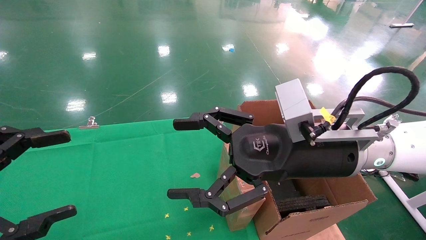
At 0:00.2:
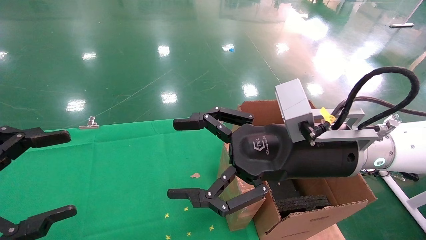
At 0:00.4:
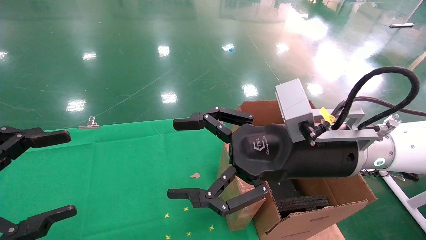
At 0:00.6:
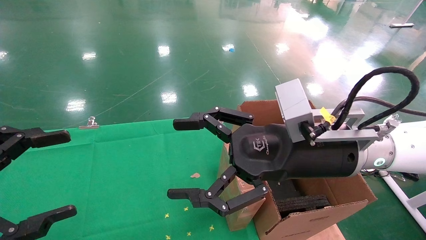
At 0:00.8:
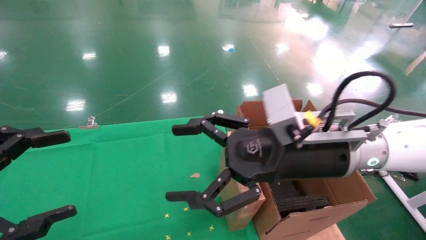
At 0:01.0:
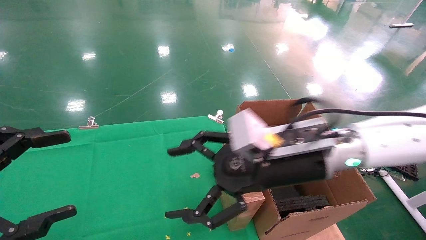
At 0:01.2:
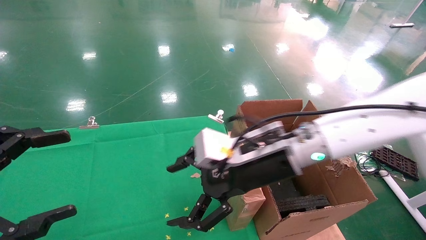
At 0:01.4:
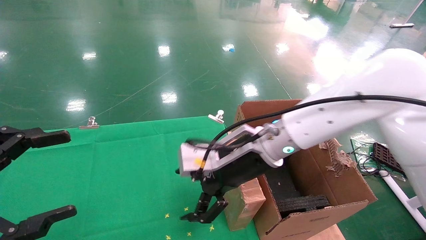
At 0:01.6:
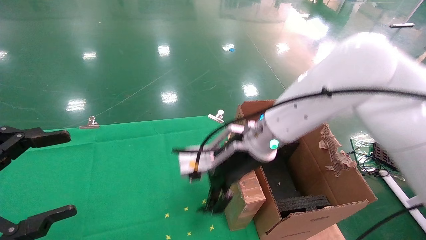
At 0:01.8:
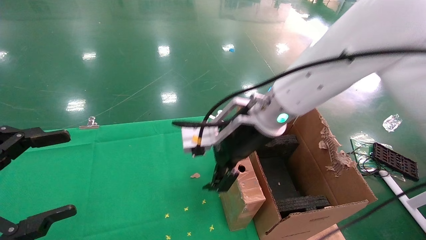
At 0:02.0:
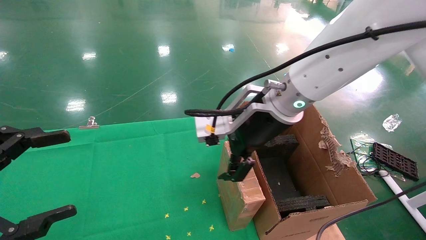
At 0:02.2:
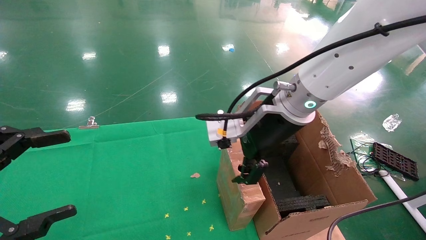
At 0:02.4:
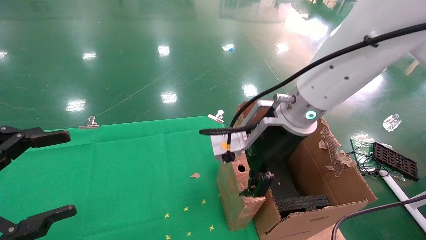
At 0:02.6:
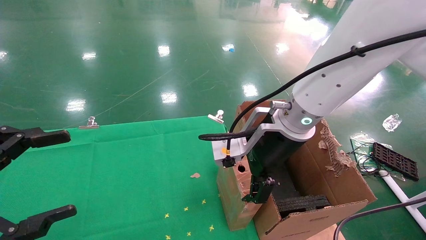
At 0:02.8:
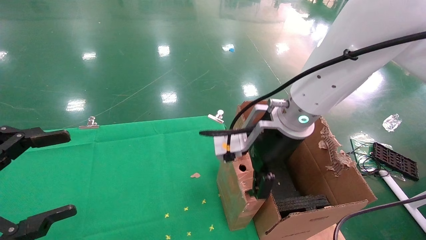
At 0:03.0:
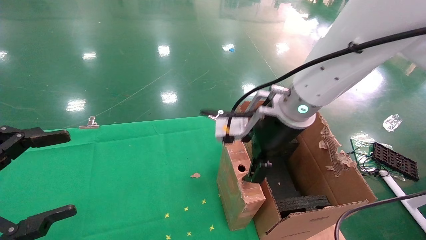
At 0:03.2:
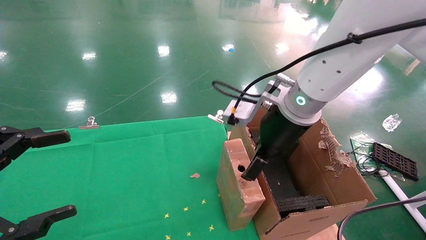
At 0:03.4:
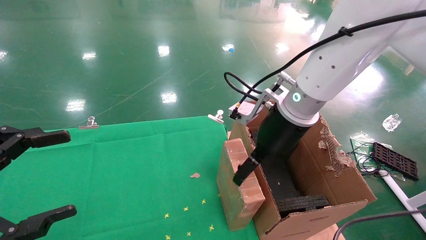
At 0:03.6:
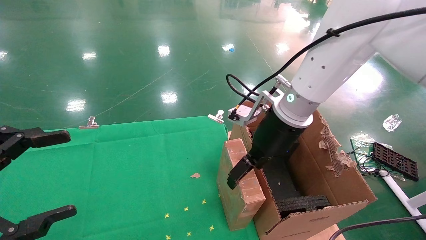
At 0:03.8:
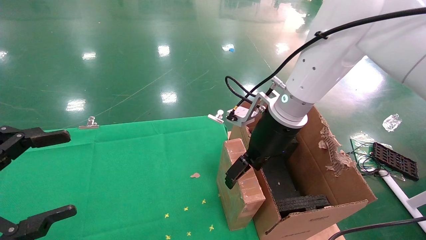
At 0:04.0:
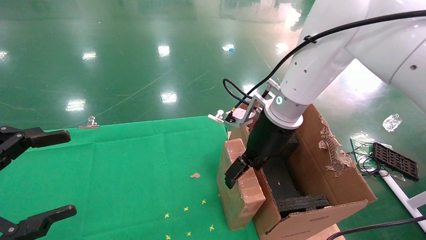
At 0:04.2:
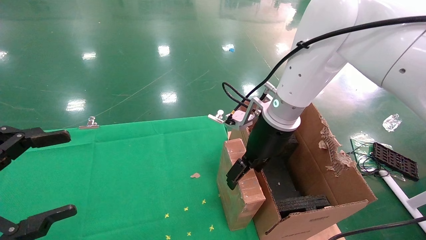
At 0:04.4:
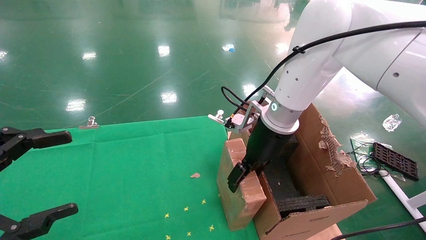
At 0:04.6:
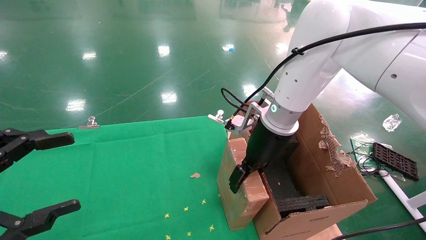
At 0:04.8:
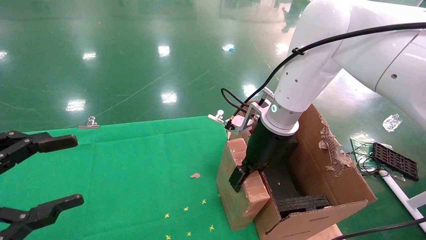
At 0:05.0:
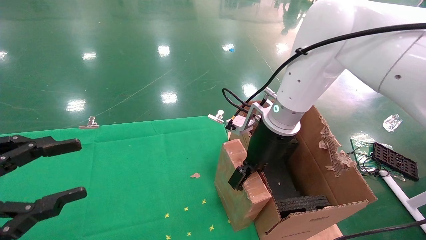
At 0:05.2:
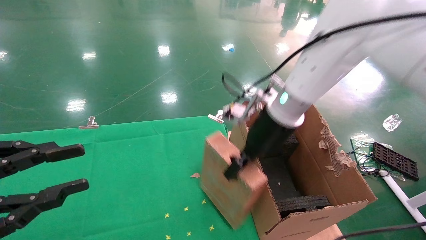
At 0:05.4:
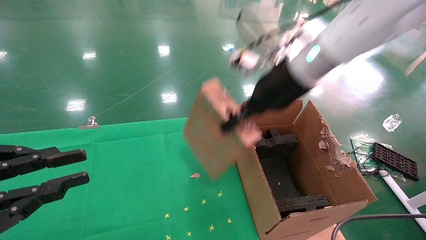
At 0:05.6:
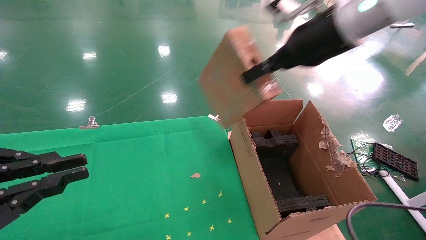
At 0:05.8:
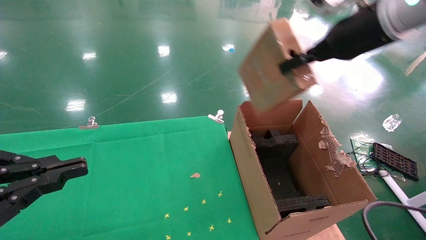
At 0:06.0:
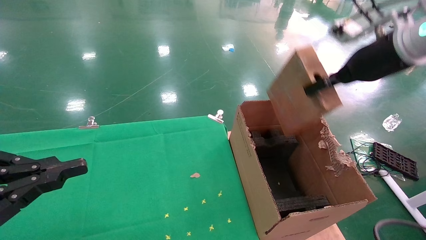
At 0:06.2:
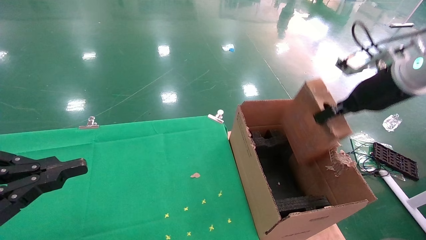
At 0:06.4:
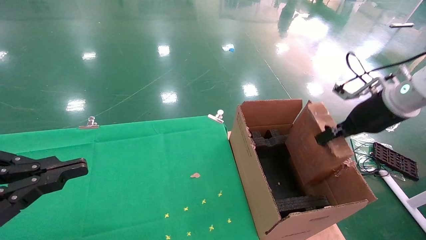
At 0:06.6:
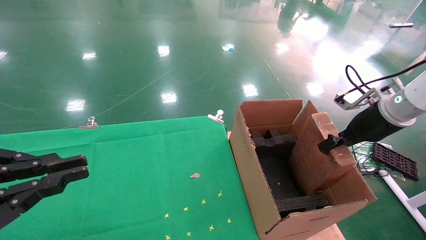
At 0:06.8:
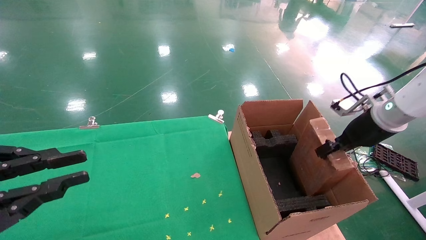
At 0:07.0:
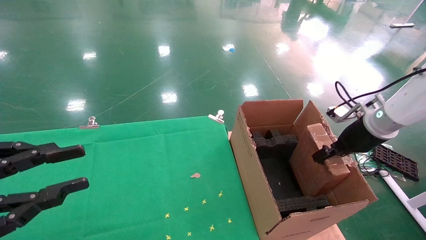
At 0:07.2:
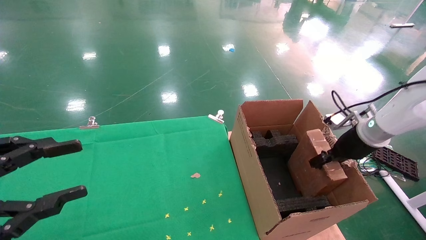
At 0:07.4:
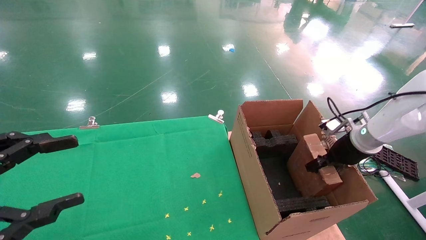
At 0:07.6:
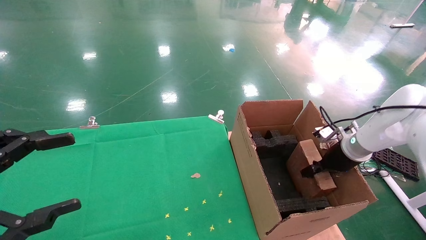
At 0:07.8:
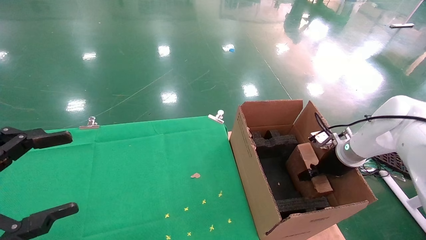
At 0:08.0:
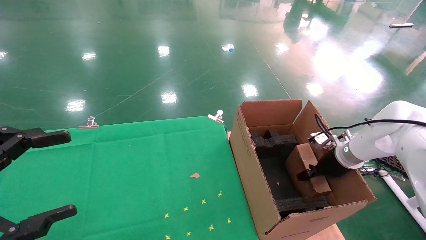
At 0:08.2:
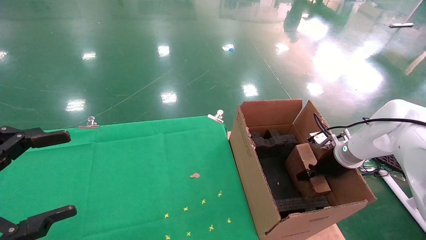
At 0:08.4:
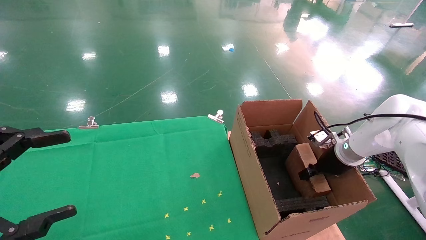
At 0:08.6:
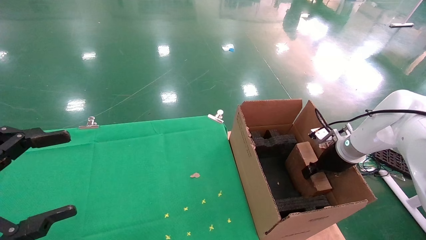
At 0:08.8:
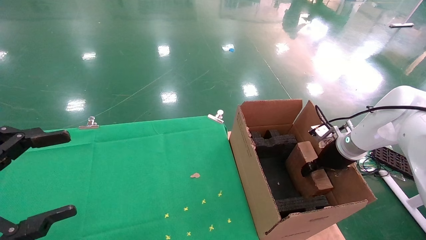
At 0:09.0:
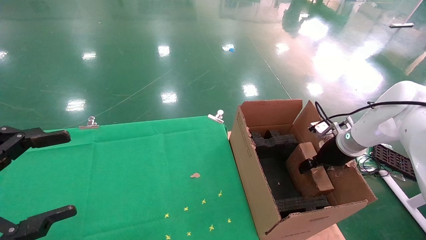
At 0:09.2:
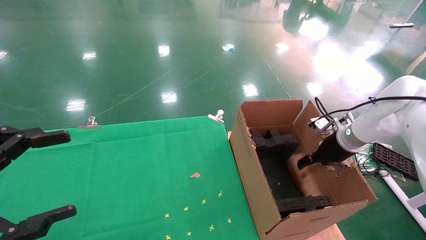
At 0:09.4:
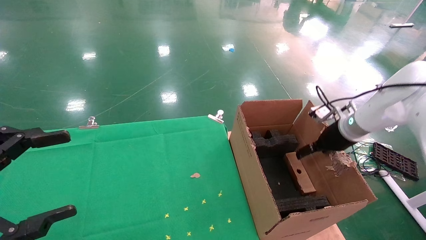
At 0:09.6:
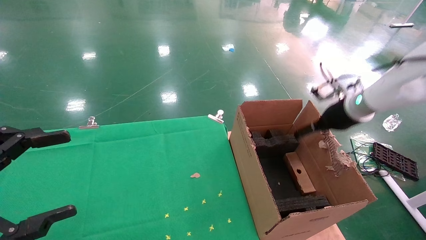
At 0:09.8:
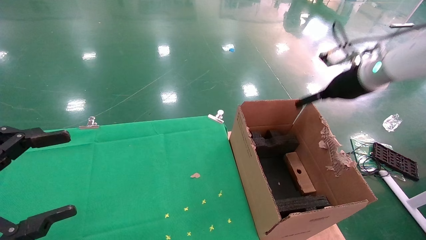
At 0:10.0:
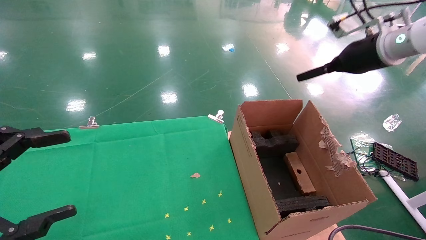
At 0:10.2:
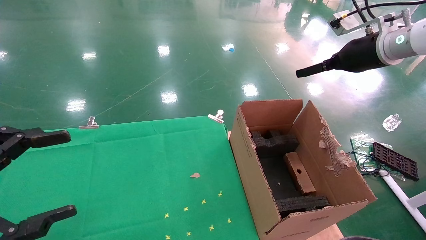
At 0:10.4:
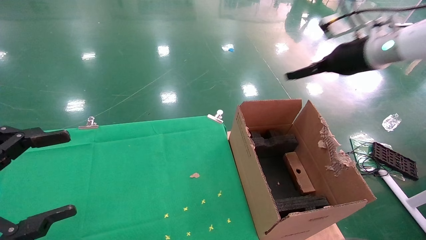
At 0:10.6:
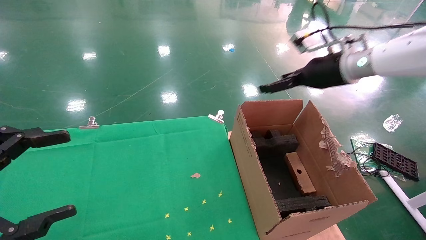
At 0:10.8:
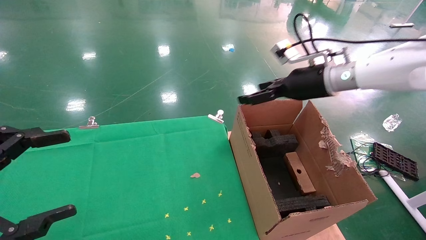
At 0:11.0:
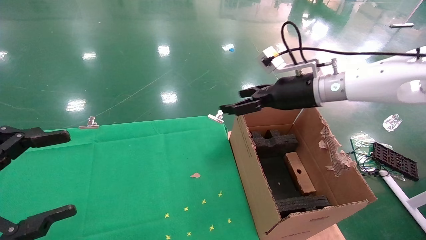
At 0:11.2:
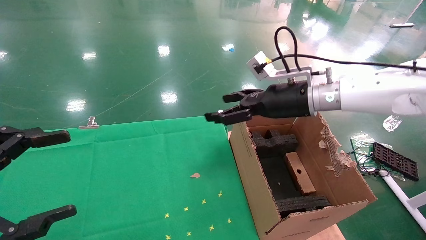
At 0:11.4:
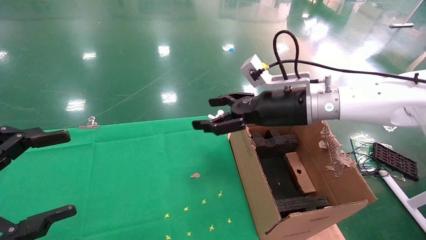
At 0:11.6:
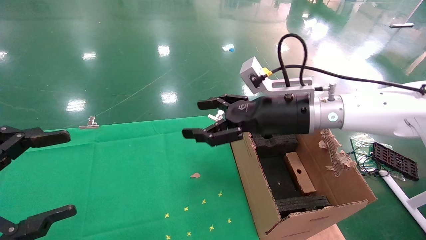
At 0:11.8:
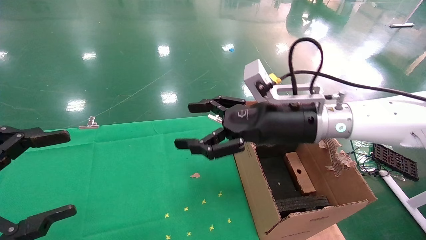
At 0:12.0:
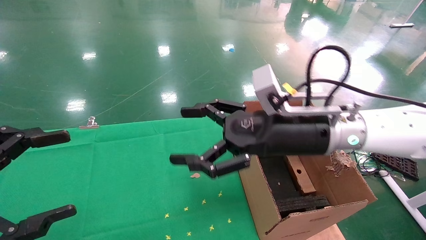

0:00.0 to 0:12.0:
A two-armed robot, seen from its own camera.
Task of the whole recording: using a robotic arm to pick up a cardboard box and palace it the carton.
Step, 0:01.0 to 0:05.0: Pick up the mouse and the power cord paper box.
Step, 0:05.2 to 0:09.8: Place the mouse and the power cord paper box into the container.
0:00.0 to 0:01.6: The right gripper goes some 10 cm forward and to the left.
0:01.6 to 0:03.0: The right gripper moves some 5 cm.
0:03.0 to 0:04.4: The right gripper ends up roughly 5 cm from where it was.
0:04.4 to 0:06.0: The right gripper is displaced to the right and upward by about 20 cm, and closes; the left gripper closes its fingers.
0:06.0 to 0:07.6: The right gripper is displaced downward by about 25 cm. The left gripper opens up.
0:07.6 to 0:09.0: The right gripper opens up.
0:09.0 to 0:10.4: The right gripper shifts roughly 20 cm upward, and opens up.
0:10.4 to 0:12.0: The right gripper goes about 25 cm to the left, backward and downward.

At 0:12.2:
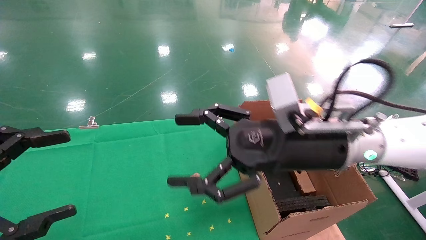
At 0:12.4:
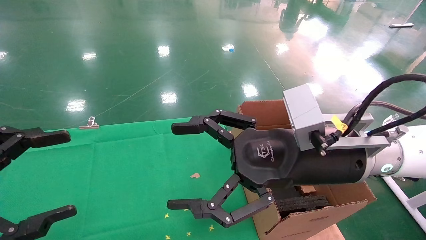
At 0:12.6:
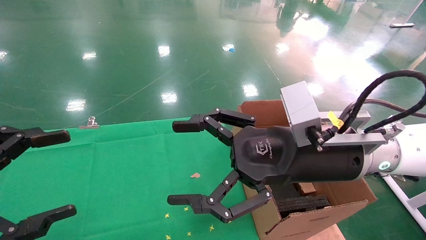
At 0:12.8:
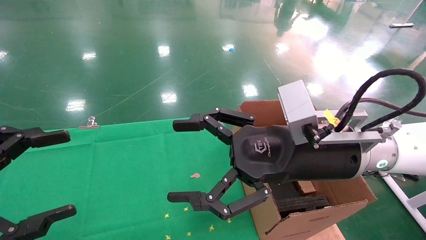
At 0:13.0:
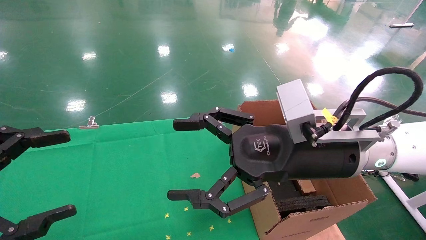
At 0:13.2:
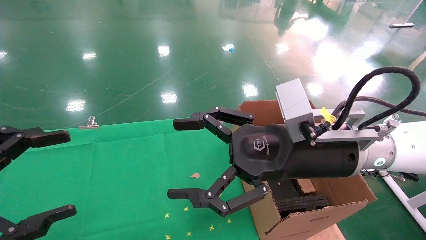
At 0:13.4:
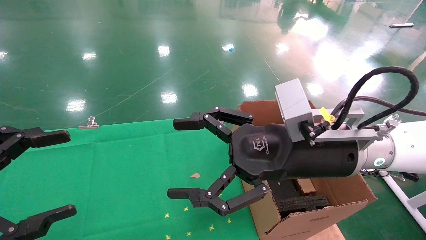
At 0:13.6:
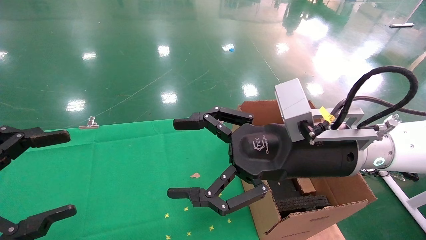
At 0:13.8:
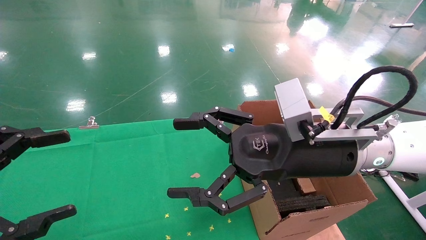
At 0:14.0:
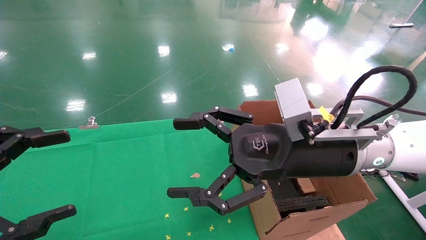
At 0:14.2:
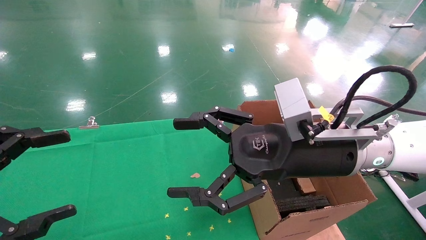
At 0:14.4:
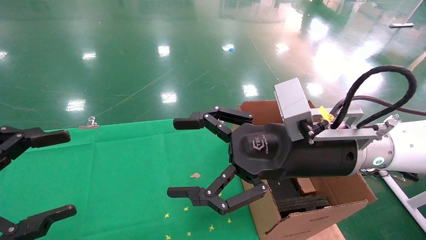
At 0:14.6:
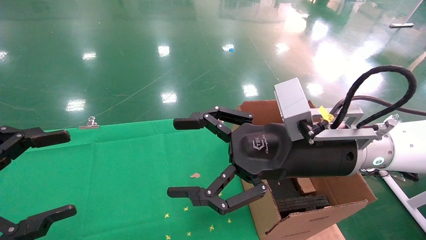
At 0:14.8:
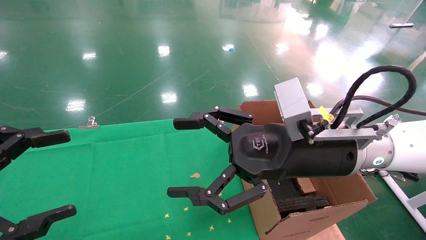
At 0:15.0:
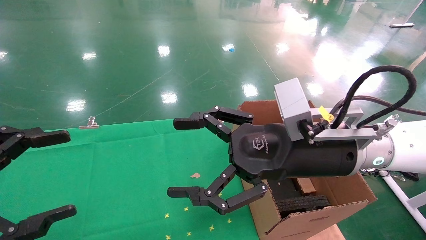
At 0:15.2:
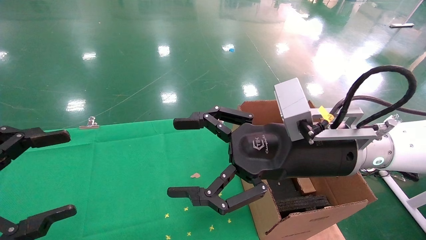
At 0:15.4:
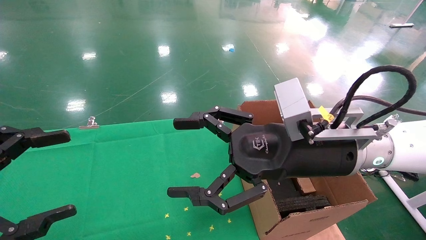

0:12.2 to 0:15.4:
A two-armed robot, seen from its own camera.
Task of the whole recording: using a robotic arm to pick up a cardboard box and palace it the carton.
0:12.2 to 0:13.8: The grippers make only small movements.
0:13.8 to 0:15.4: Neither gripper changes place.
